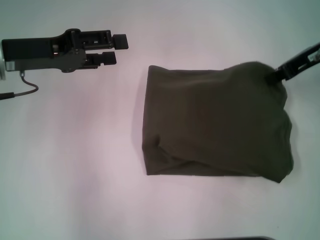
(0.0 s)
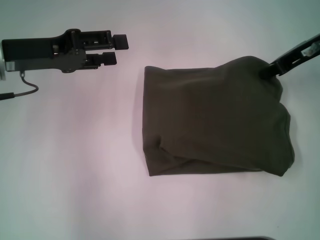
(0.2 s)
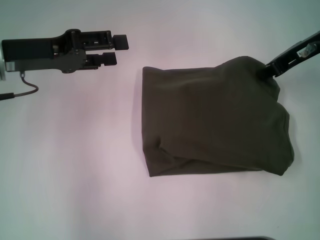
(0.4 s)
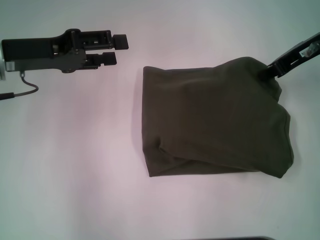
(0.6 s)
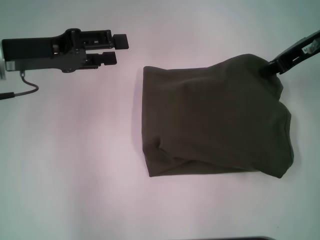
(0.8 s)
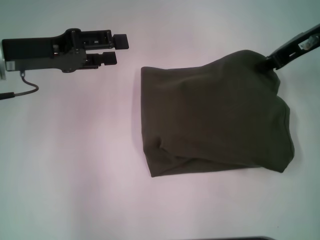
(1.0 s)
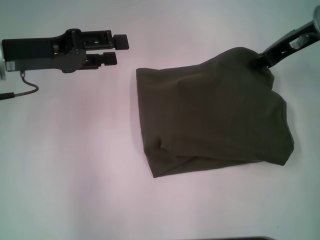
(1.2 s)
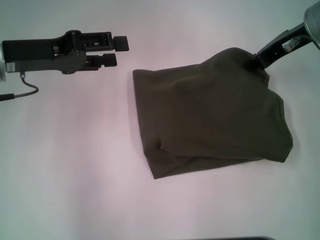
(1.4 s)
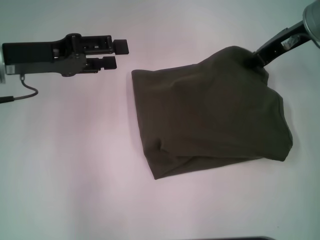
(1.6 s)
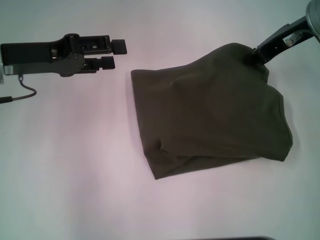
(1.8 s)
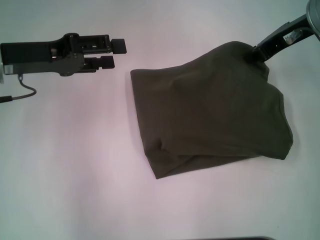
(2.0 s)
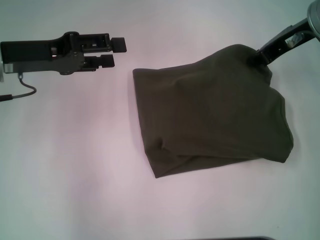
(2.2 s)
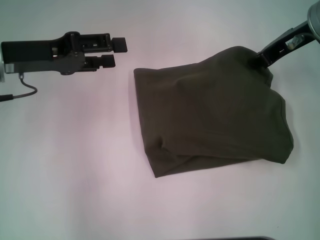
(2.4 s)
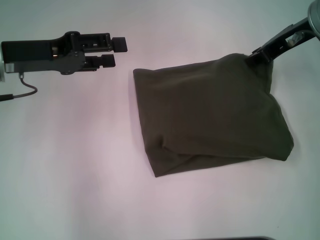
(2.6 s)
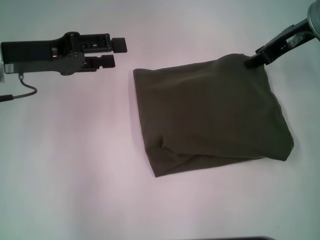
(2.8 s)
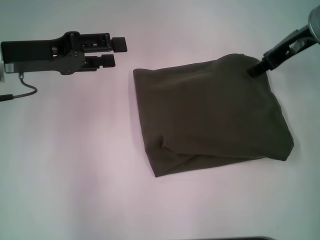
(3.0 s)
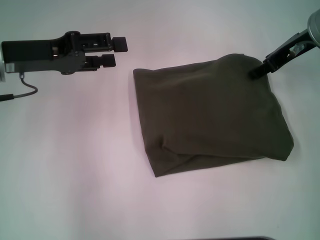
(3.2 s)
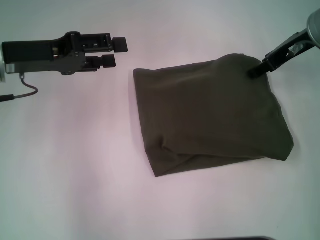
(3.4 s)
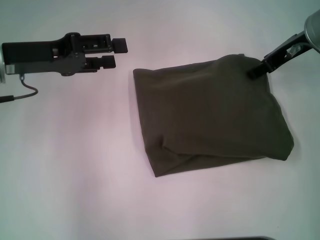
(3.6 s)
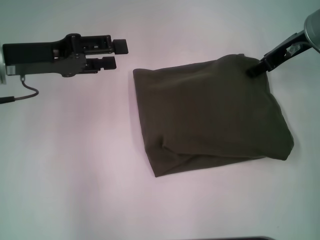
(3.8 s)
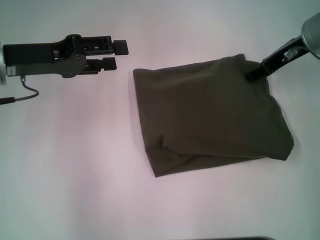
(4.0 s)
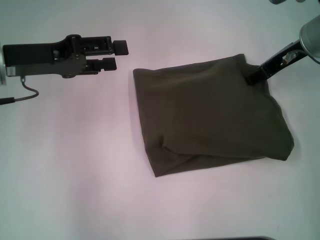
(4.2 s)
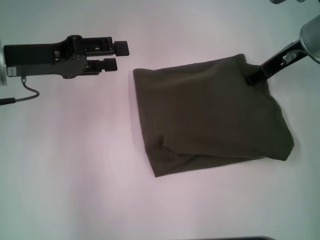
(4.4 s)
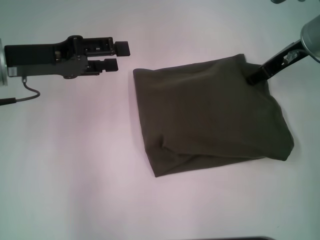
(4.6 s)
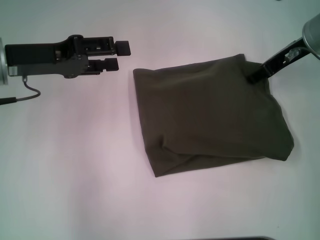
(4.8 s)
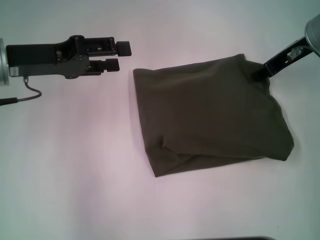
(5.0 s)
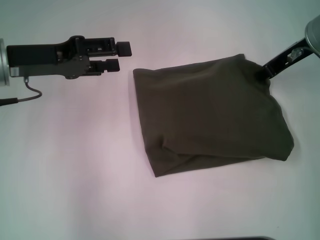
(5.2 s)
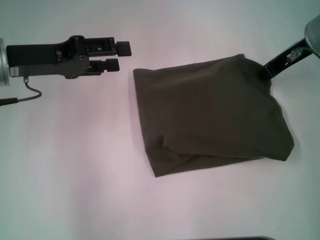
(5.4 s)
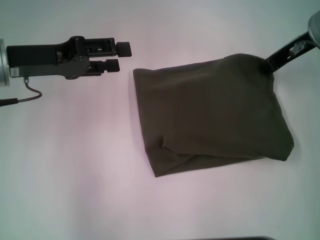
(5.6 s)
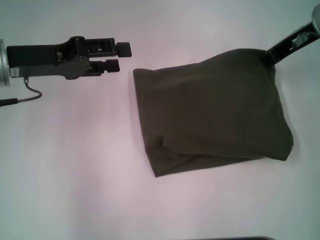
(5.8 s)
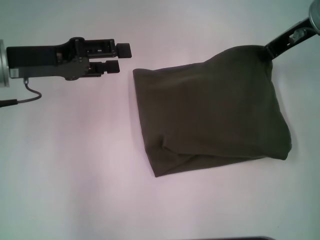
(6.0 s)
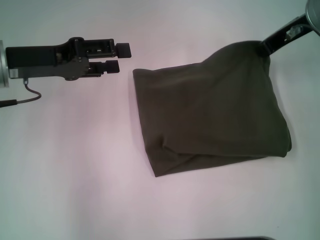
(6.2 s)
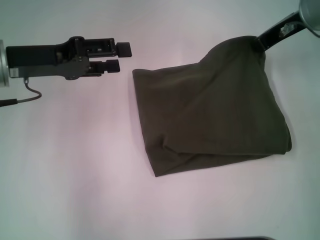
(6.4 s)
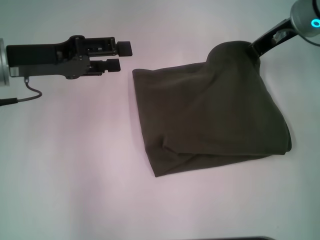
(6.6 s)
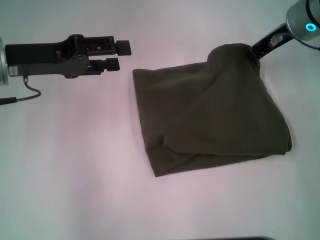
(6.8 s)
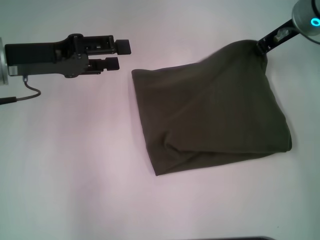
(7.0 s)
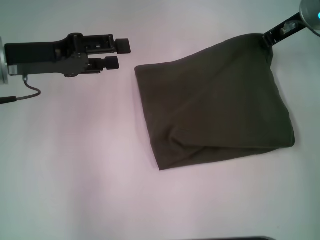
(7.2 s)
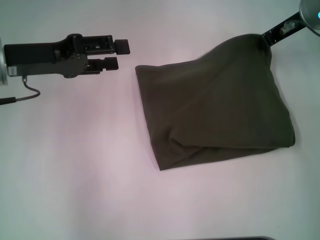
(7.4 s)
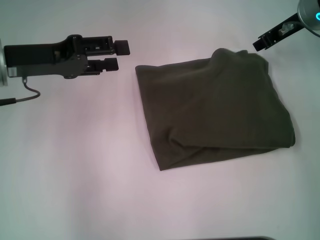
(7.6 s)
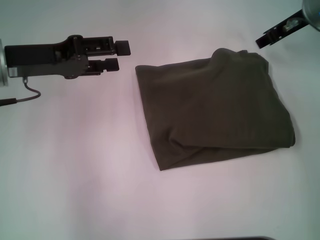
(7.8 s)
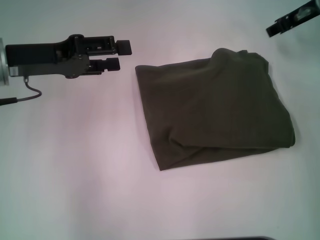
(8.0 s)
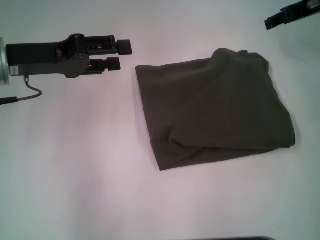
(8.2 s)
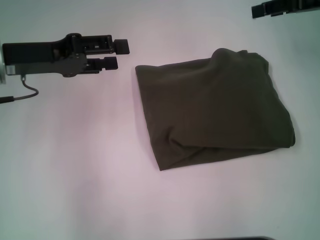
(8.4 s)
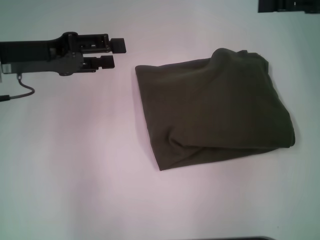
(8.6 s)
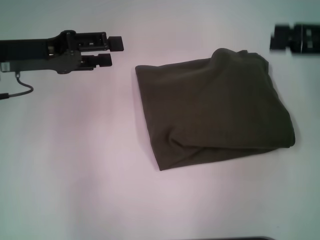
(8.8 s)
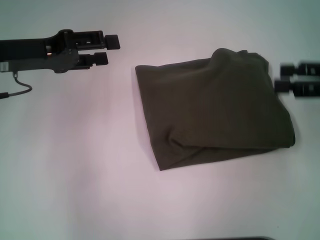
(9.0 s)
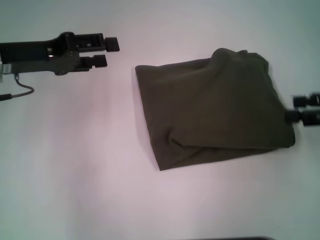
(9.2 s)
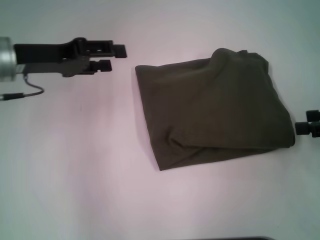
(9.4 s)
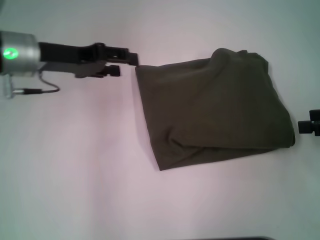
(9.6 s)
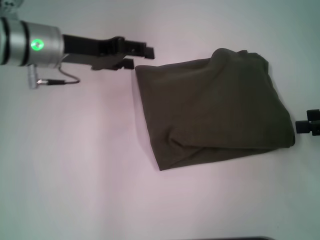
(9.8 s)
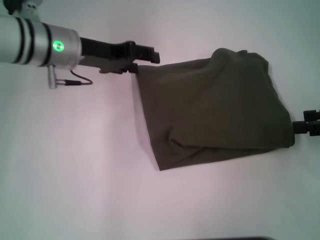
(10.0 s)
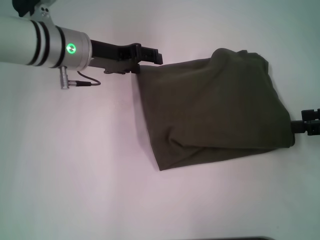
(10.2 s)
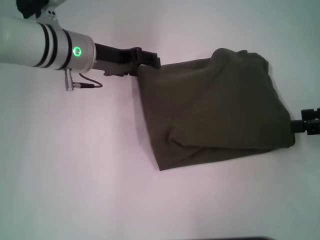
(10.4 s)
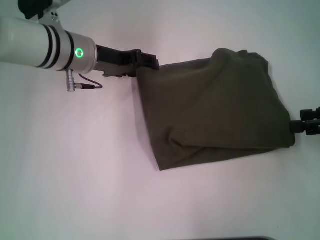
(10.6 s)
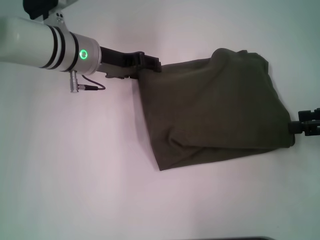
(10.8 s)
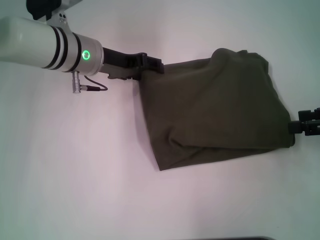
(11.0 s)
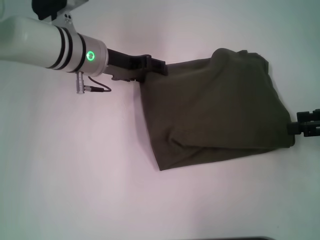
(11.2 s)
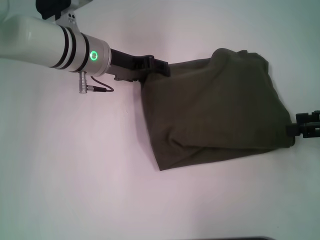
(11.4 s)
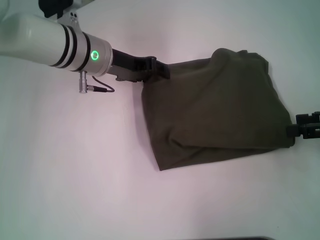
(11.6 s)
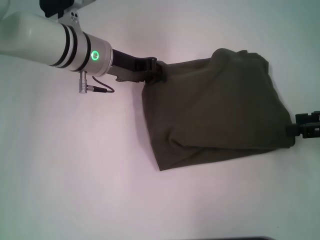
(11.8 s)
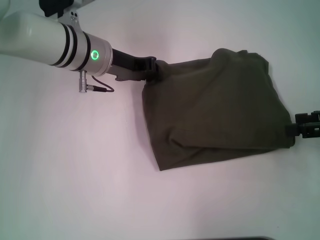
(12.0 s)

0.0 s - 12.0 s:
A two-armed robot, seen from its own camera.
0.0 s - 1.6 s: The grippers stay close to where they were, moving slightly.
1.6 s - 3.0 s: The right gripper opens up.
3.0 s - 4.4 s: The grippers stay close to where they were, moving slightly.
4.4 s - 6.0 s: The right gripper closes up.
6.0 s - 7.6 s: There are only small adjustments of the grippers.
7.6 s - 9.0 s: The right gripper heads backward and to the right, covering some 20 cm, and opens up.
9.0 s - 10.4 s: The left gripper is displaced to the right and forward by approximately 10 cm, while the right gripper moves approximately 5 cm.
10.4 s - 12.0 s: The left gripper closes up.

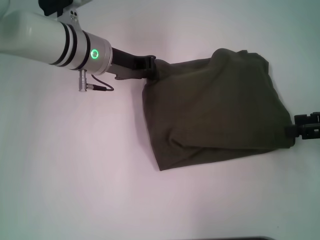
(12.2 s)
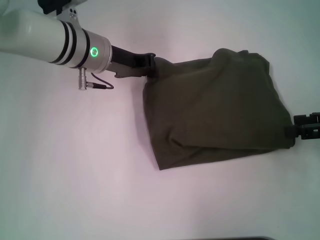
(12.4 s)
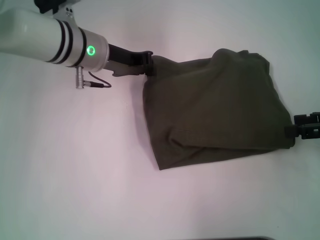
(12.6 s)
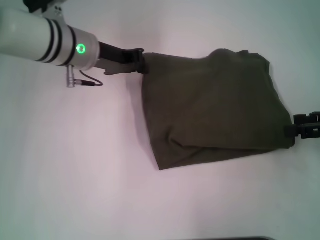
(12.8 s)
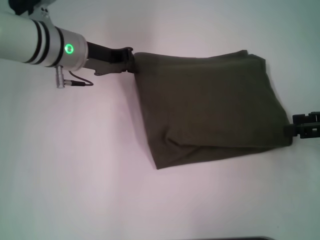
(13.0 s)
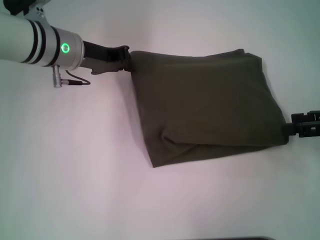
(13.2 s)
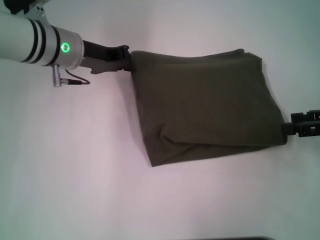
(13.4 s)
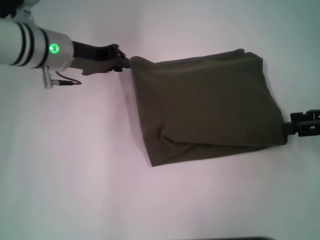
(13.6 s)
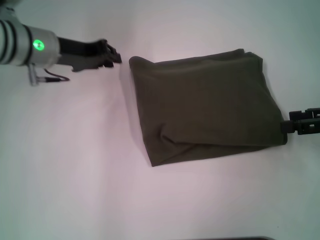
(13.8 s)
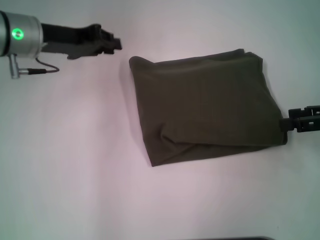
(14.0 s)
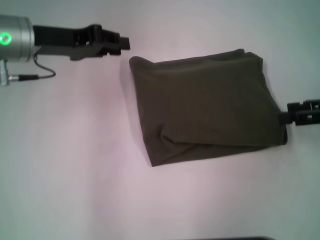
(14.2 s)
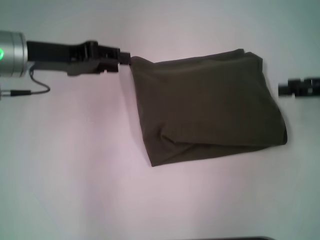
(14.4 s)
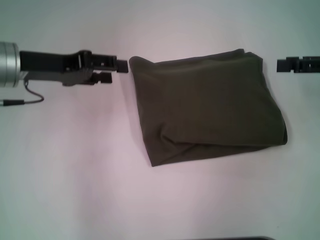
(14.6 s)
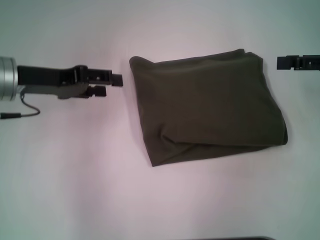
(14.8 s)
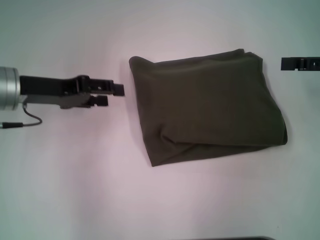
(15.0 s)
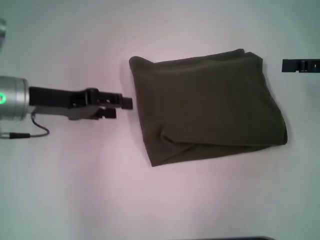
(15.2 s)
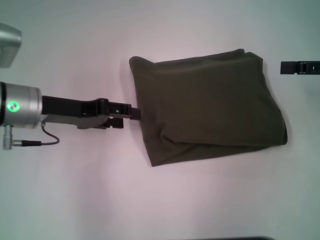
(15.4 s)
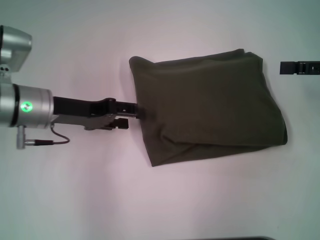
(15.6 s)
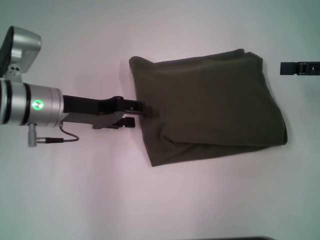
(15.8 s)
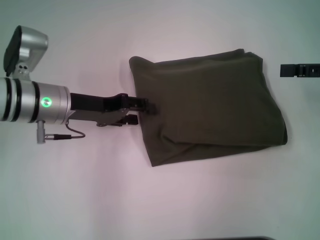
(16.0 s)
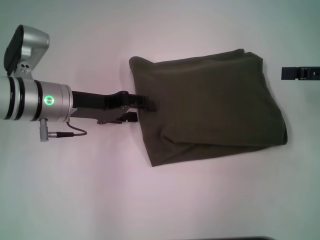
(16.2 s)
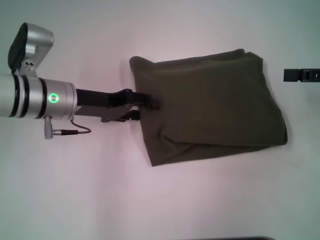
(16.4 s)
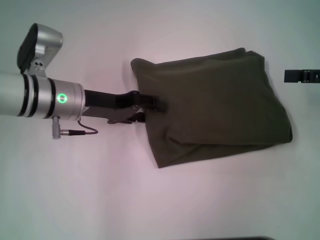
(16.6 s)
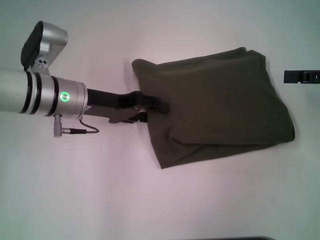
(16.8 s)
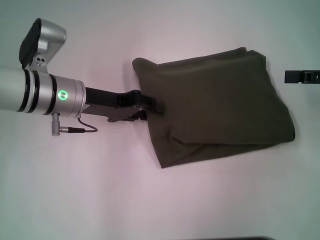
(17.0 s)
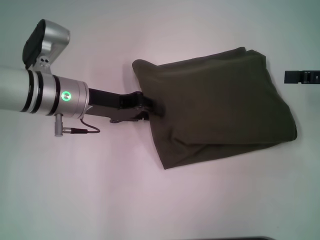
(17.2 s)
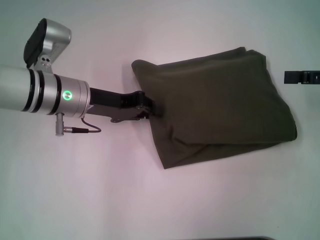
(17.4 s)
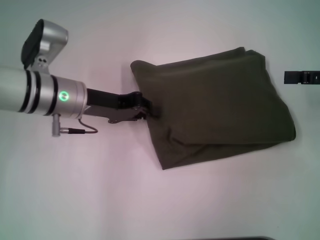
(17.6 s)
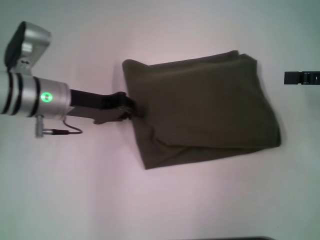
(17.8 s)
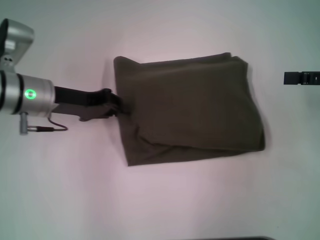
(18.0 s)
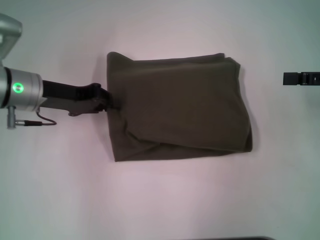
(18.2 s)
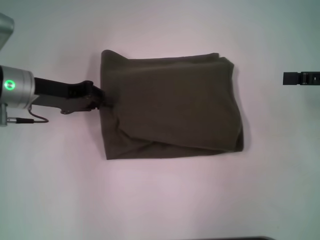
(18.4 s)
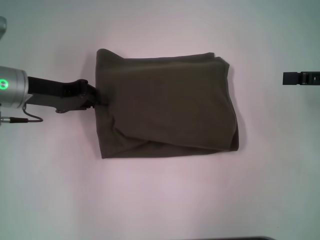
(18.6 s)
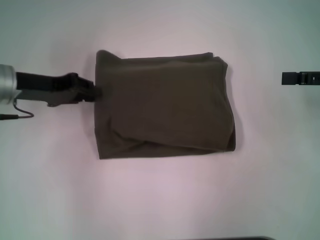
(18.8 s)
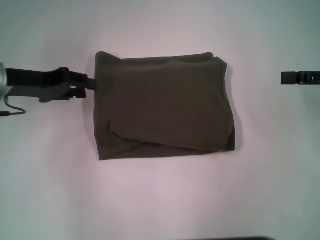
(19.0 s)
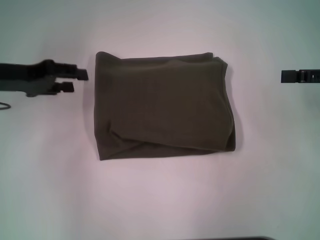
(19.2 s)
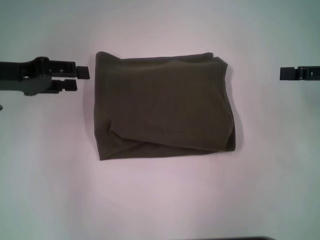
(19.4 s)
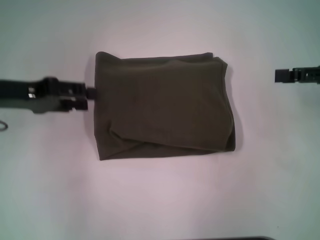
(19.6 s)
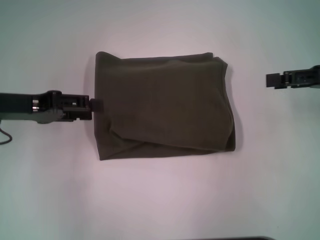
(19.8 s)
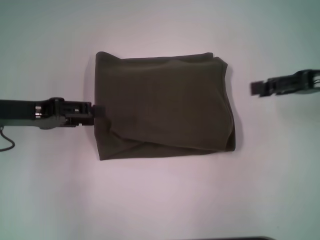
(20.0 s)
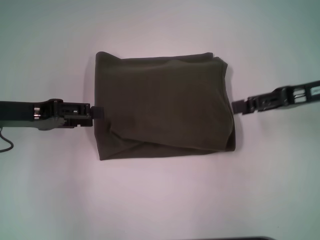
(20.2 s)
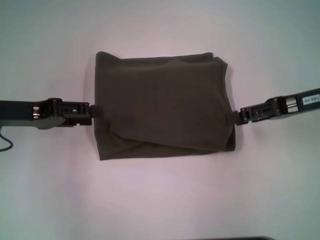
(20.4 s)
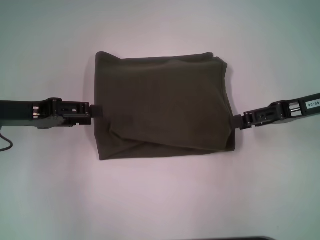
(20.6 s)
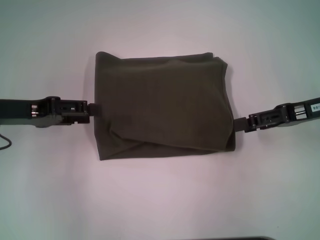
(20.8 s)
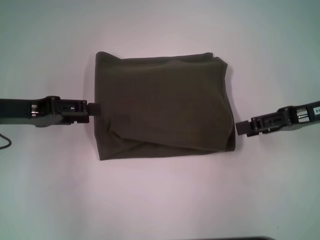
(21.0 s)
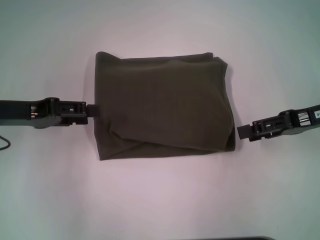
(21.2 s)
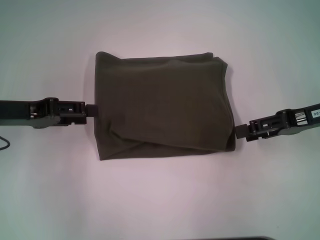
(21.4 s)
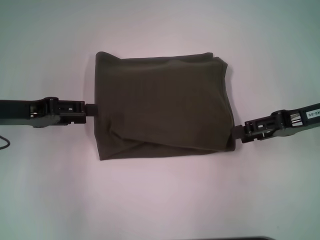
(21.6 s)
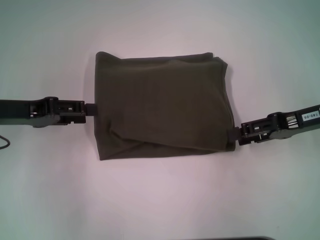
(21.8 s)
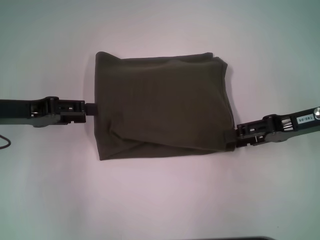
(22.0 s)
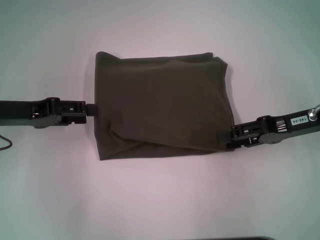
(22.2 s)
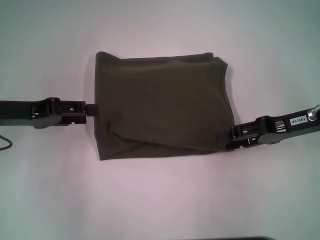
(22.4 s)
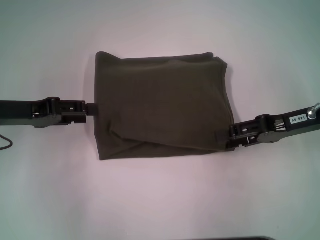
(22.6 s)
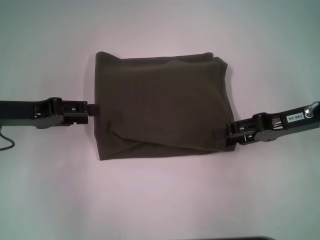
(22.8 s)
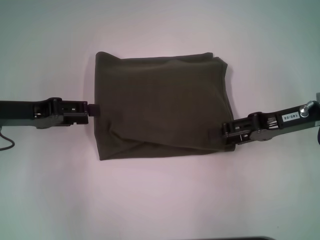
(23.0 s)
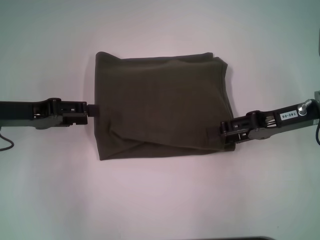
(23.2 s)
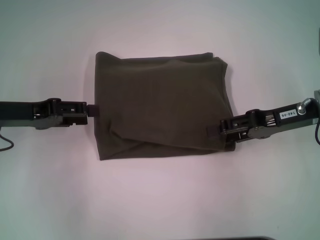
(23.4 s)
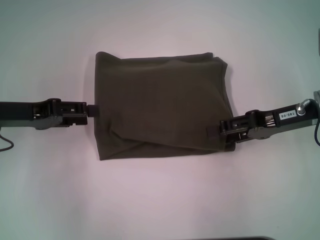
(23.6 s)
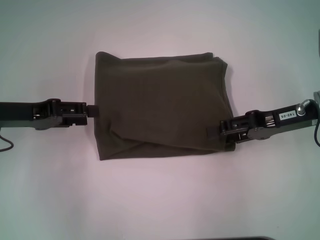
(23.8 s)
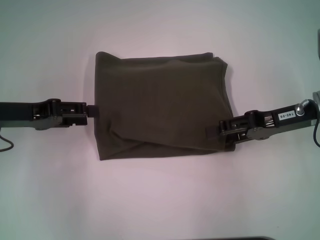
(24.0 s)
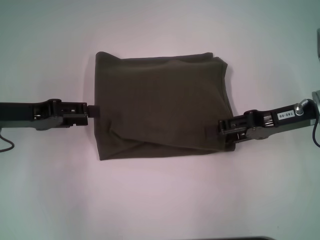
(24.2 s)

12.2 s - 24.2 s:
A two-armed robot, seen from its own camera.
12.2 s - 13.8 s: The left gripper shifts roughly 5 cm to the left.
13.8 s - 15.2 s: The left gripper moves backward, some 10 cm, and opens up.
15.2 s - 16.6 s: The left gripper shifts approximately 5 cm to the right.
16.6 s - 18.2 s: The left gripper is displaced to the left by approximately 5 cm, and closes up.
18.2 s - 19.8 s: The left gripper goes some 5 cm to the left, and opens up.
19.8 s - 21.2 s: The right gripper changes place by roughly 5 cm.
21.2 s - 24.2 s: The grippers stay close to where they were, moving slightly.
